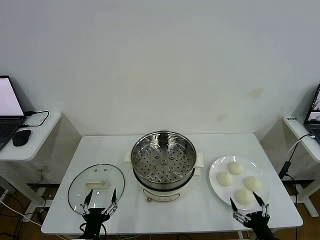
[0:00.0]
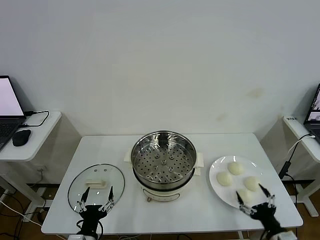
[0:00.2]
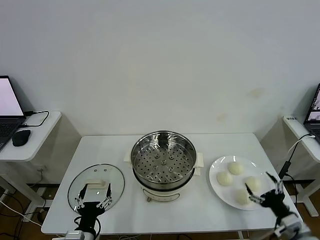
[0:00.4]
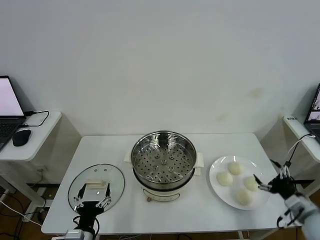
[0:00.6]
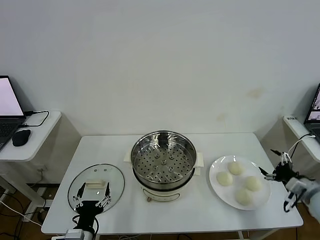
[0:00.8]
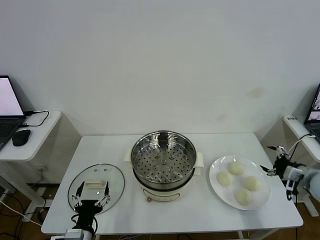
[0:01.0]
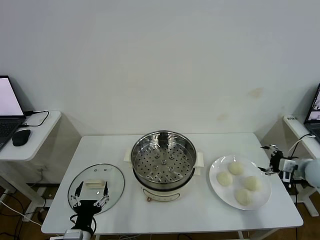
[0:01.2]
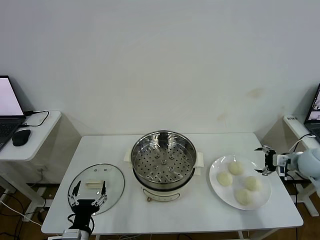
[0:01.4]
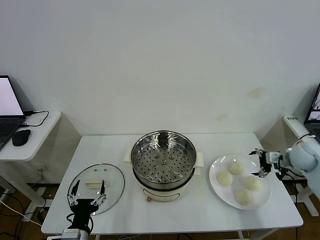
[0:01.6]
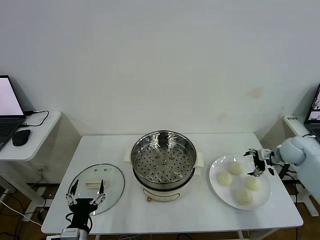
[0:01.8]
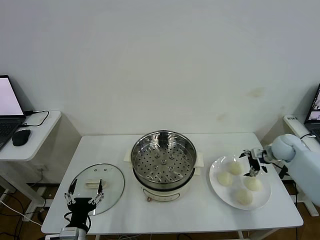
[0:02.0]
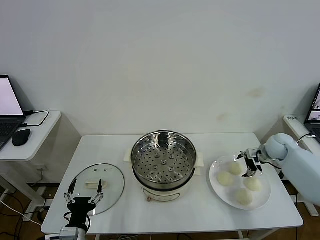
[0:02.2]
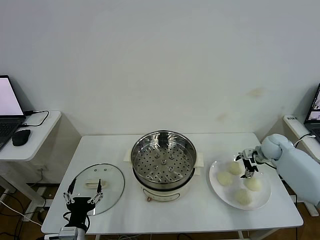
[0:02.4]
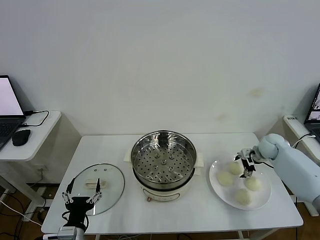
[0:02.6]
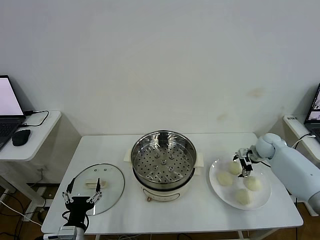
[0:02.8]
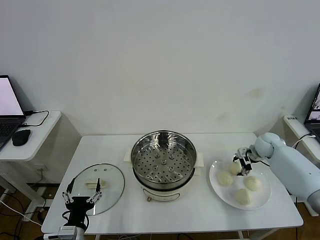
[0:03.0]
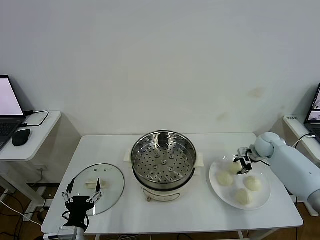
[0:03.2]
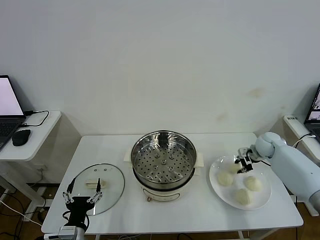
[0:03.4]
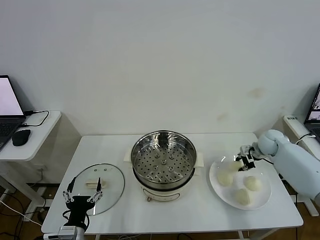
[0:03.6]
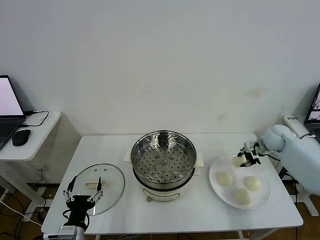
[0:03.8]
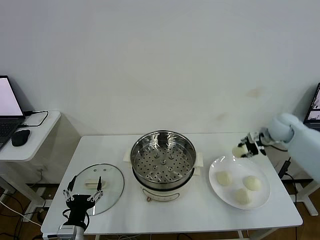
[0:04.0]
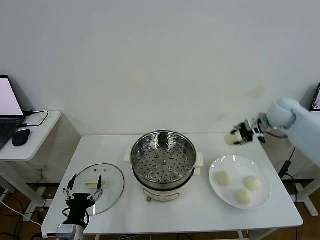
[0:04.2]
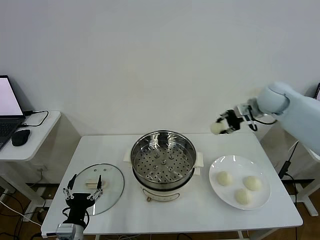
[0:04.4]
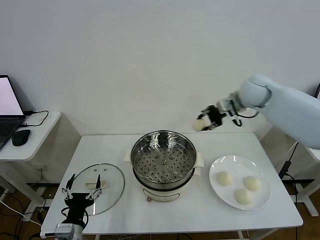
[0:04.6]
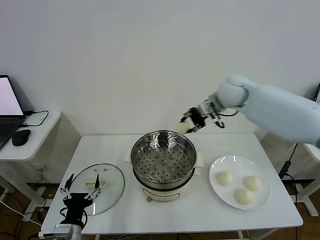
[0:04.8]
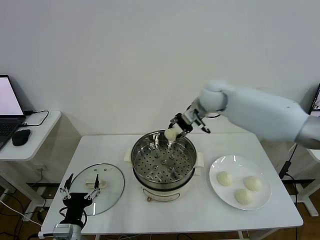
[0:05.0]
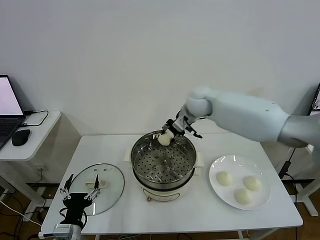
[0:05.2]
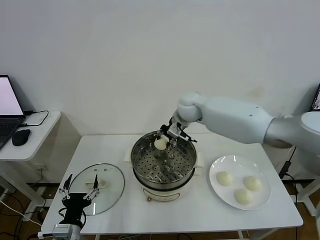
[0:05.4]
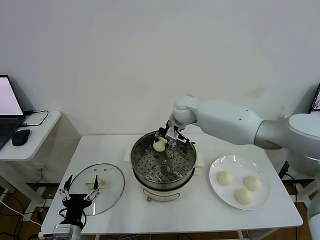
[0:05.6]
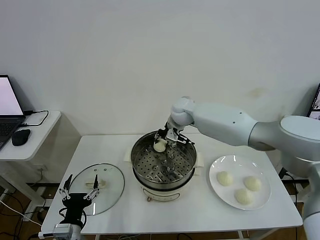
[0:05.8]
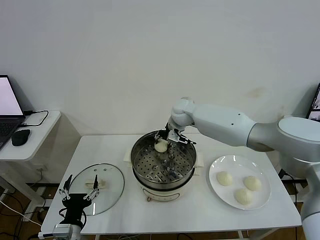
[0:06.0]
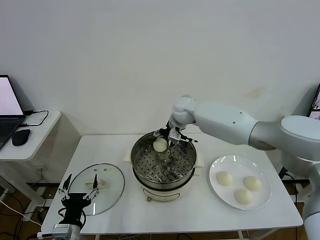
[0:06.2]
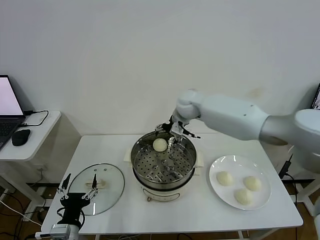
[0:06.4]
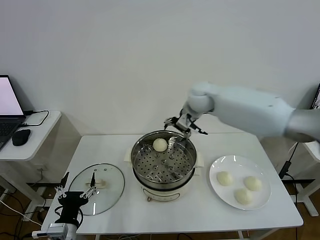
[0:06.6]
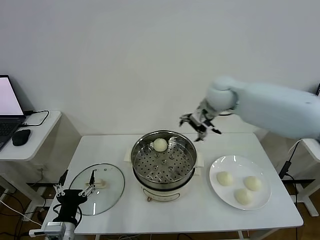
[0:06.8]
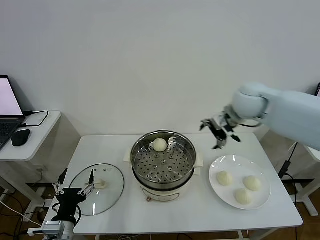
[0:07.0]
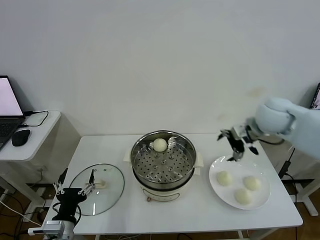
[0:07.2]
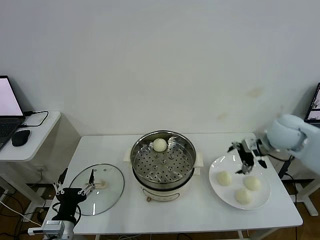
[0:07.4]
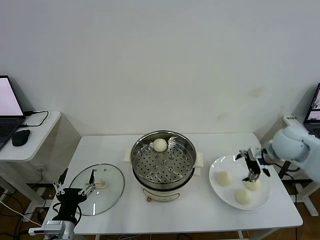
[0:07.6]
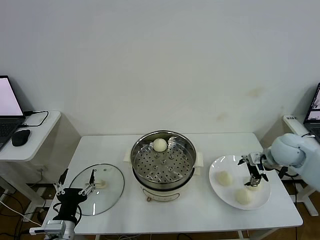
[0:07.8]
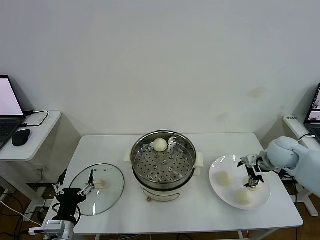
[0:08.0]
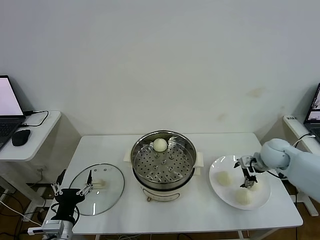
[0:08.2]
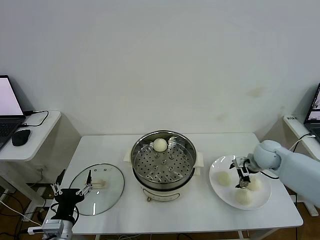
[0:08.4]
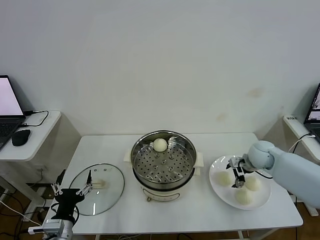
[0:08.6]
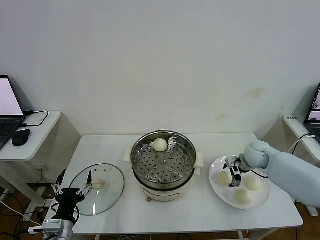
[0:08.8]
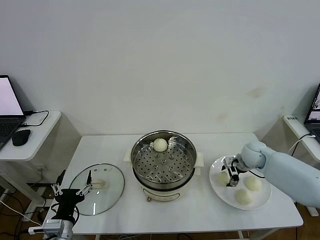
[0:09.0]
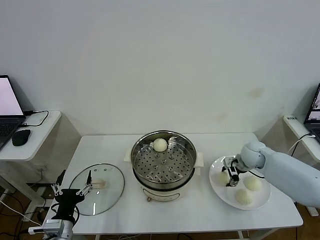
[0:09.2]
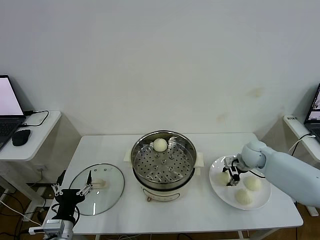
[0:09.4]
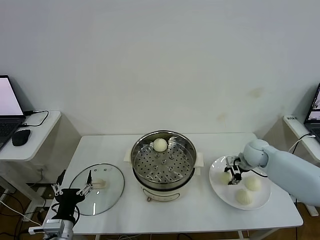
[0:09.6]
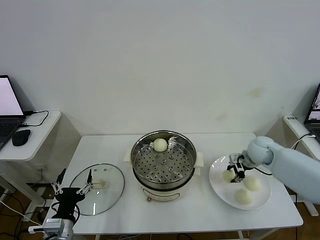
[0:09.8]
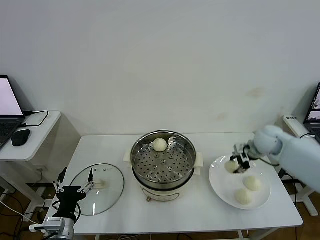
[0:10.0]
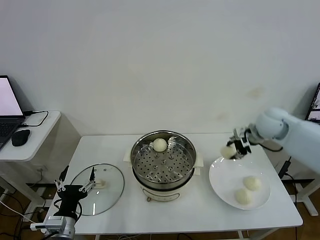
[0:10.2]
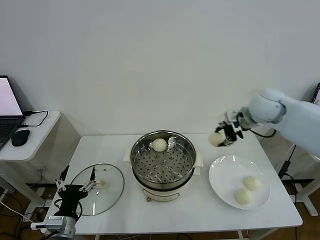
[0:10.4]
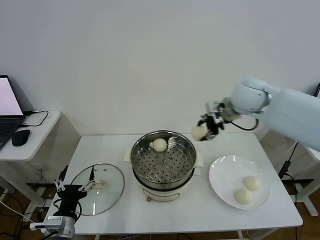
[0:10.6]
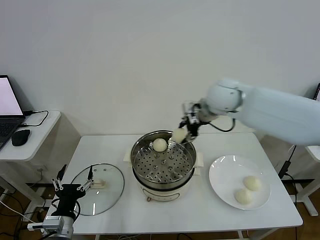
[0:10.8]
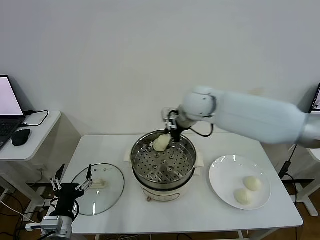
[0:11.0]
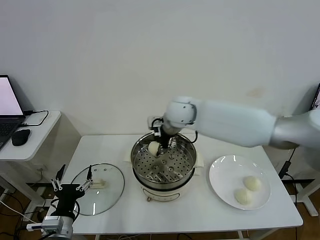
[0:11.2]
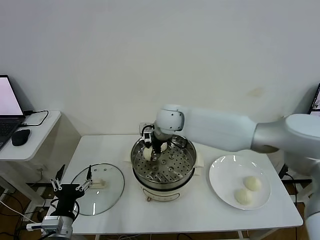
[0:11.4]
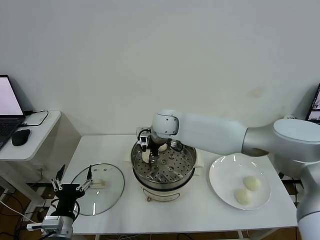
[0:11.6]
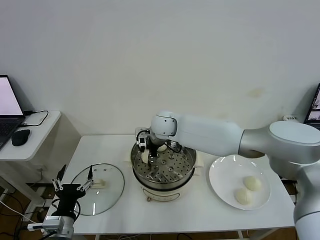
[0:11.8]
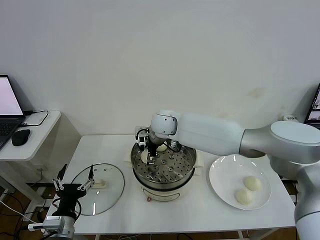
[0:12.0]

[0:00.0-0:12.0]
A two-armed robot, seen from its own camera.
Step, 0.0 to 3.2 s: Grasp the baozi in the plate with right gripper.
Step, 3.6 to 6.4 s: Place the baozi on the steamer with right gripper.
Step, 6.6 to 9.4 s: Grasp the baozi in the plate with right gripper.
1.6 to 3.0 s: The right gripper is displaced forward and to the left by roughly 10 cm, and closes its fingers.
3.0 to 4.4 s: The right gripper is displaced upward and to the left by roughly 25 cm, and closes its fingers.
4.4 to 6.0 s: The right gripper goes about 25 cm to the left and downward, and opens.
6.0 to 7.6 s: The right gripper moves to the right and backward, some 35 cm, and opens.
7.6 to 9.0 s: The right gripper shifts approximately 15 cm downward and forward.
9.0 to 10.4 s: The right gripper shifts about 25 cm upward, and closes up.
10.4 to 12.0 s: The right gripper travels to the left by some 25 cm, and opens up.

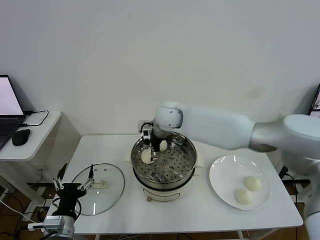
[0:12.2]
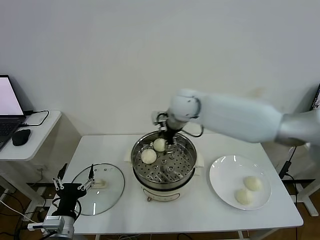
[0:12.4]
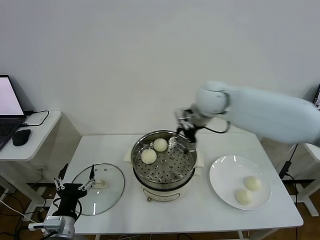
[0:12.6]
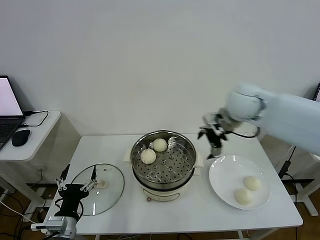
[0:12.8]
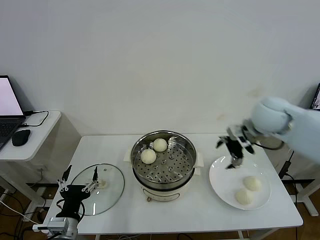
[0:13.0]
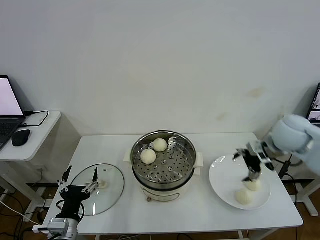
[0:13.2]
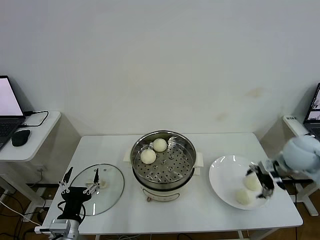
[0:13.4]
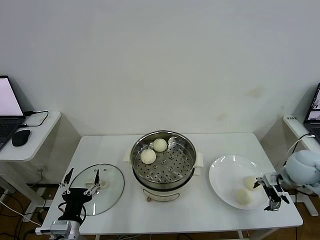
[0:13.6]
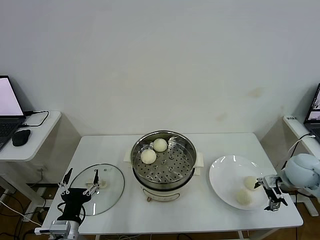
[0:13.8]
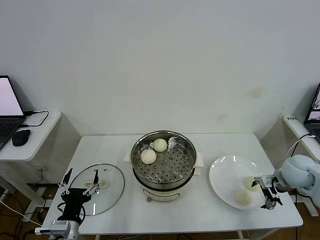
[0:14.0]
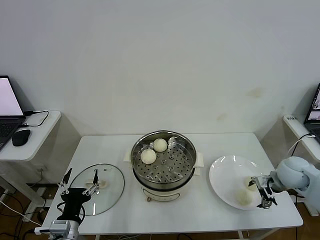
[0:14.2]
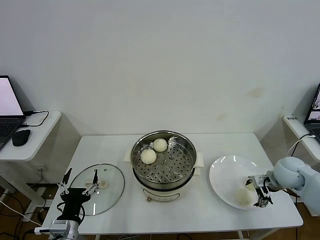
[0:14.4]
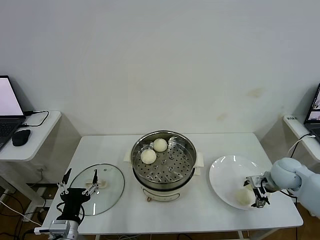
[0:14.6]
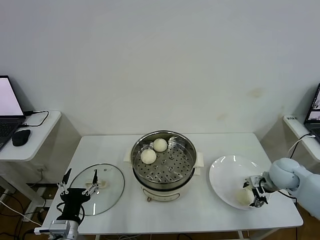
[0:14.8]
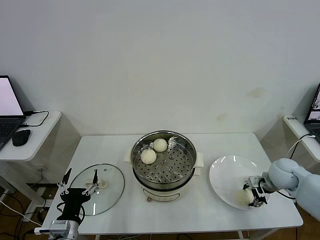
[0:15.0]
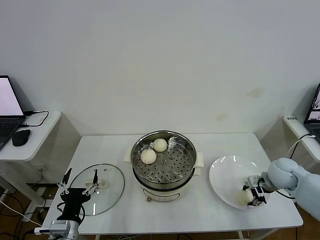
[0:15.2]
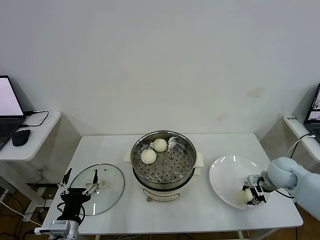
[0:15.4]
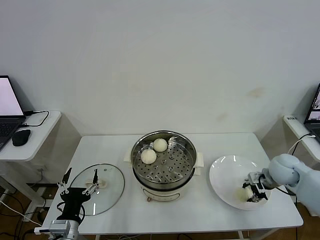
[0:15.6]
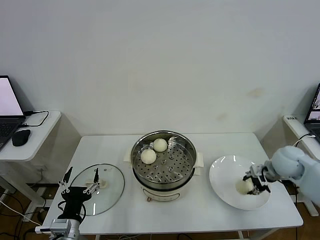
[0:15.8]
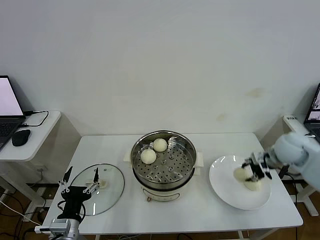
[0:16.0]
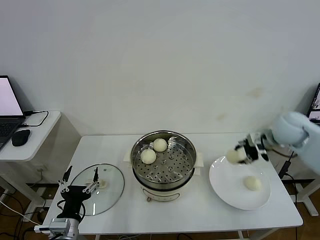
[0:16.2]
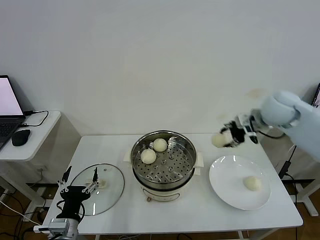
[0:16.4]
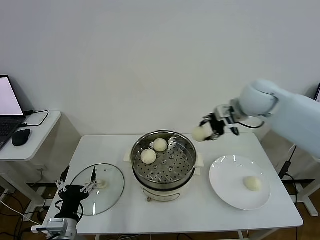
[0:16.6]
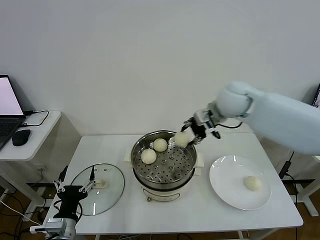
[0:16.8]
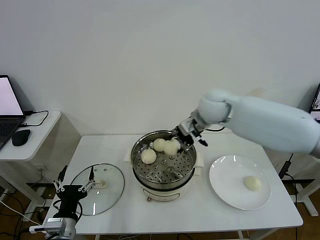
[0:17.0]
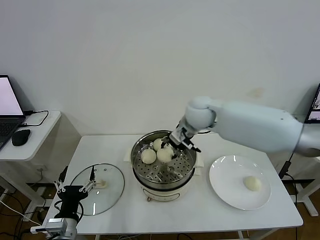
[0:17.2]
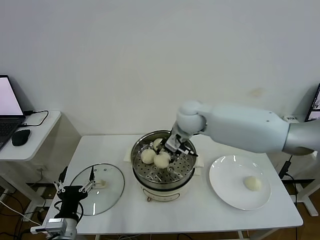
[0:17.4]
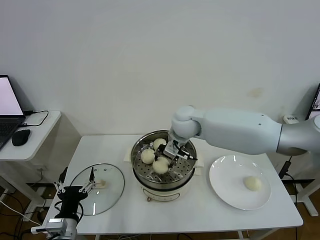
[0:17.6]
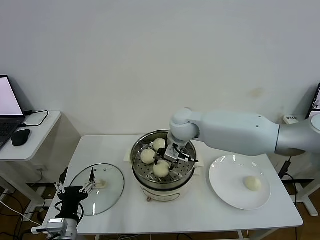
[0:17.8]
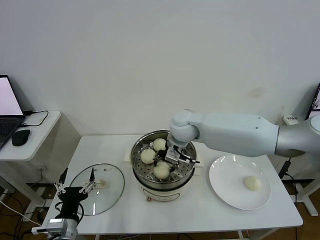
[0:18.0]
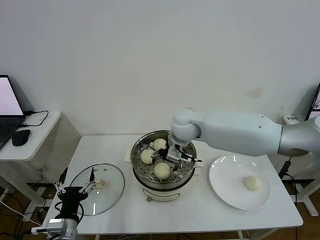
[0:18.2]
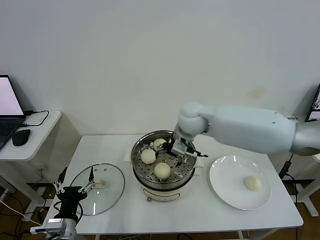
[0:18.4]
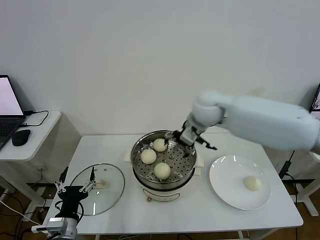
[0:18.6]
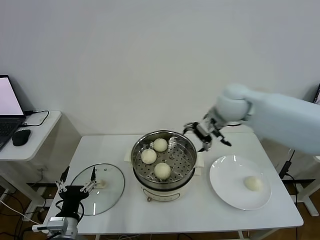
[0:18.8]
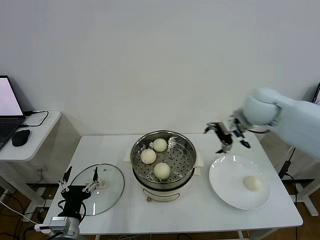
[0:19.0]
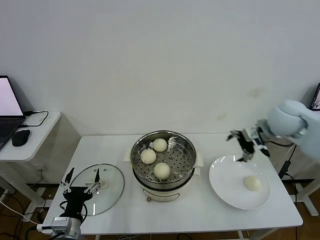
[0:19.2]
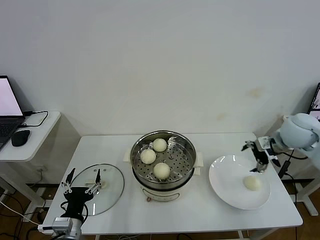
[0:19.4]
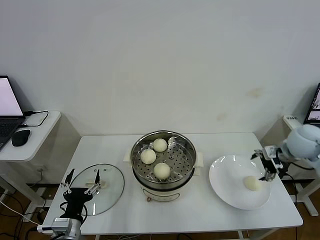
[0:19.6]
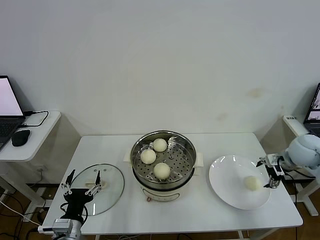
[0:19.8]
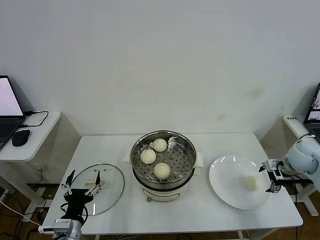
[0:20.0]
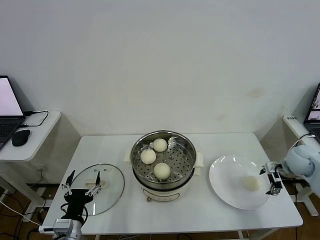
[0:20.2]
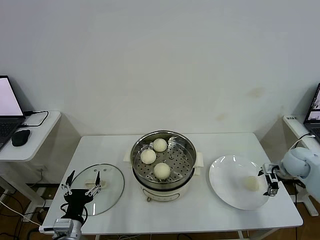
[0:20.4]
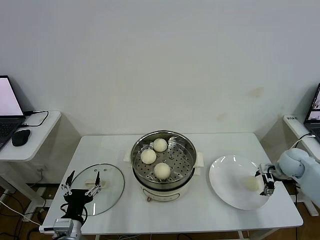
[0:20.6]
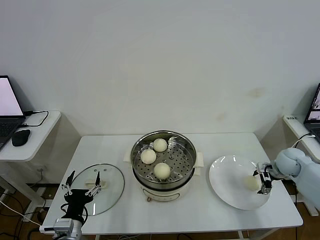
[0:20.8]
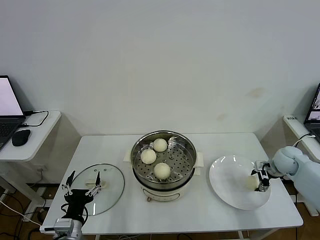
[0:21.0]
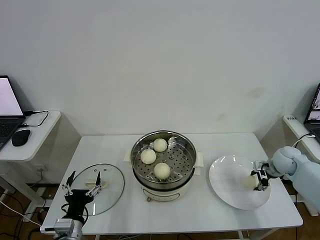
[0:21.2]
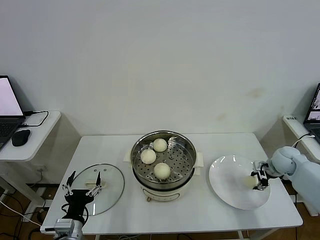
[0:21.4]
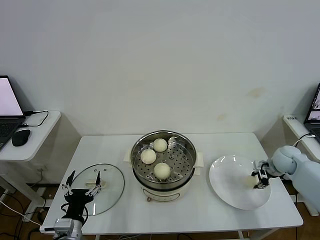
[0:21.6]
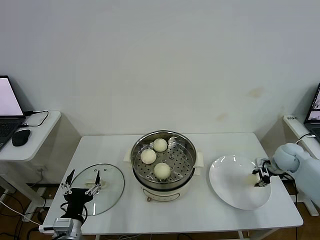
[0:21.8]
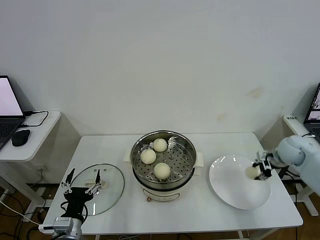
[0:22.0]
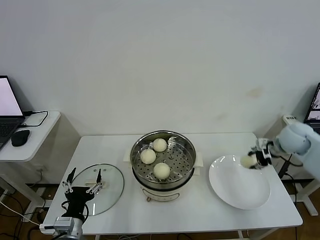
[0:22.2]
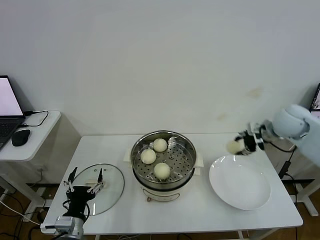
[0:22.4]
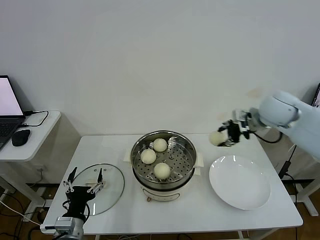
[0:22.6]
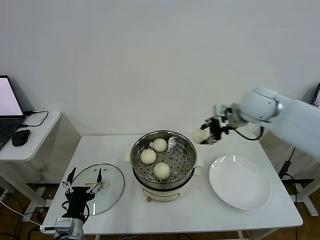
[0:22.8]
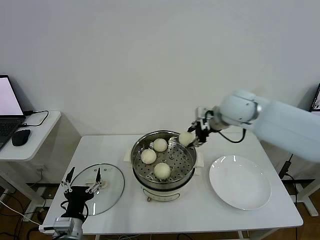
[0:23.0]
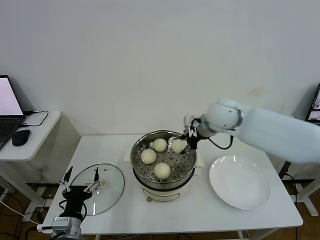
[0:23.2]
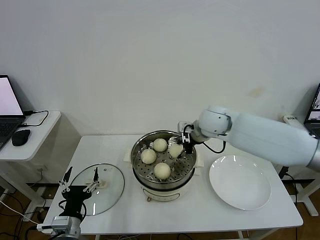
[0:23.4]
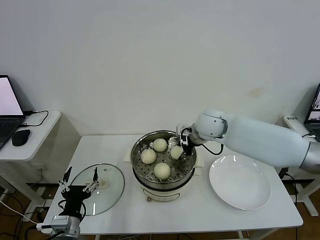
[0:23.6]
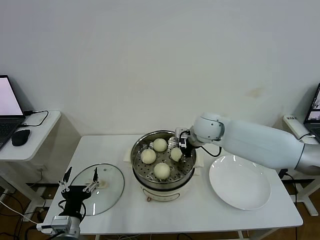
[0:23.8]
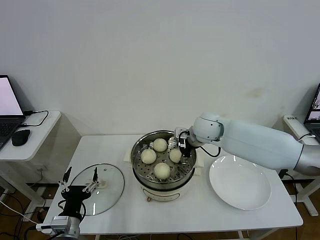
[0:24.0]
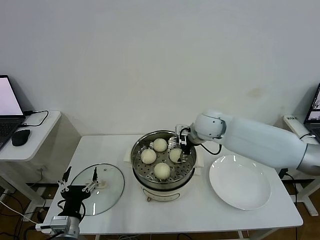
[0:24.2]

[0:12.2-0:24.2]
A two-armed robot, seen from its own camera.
Step, 12.6 to 15.2 s: Grasp the baozi in the plate with right gripper.
Step, 15.6 to 18.4 s: Place the baozi on the steamer with right gripper.
Step, 18.6 to 21.6 s: Grasp the baozi in the plate with right gripper.
12.2 to 13.8 s: The right gripper moves to the right, roughly 40 cm.
13.8 to 15.2 s: The right gripper moves roughly 5 cm, and closes up.
15.2 to 16.6 s: The right gripper travels upward, to the left and forward by some 30 cm.
16.6 to 18.2 s: The right gripper is displaced to the left and downward by approximately 20 cm, and opens up.
18.2 to 19.8 s: The right gripper moves to the right, approximately 40 cm.
19.8 to 21.2 s: The right gripper heads downward, covering roughly 10 cm, and closes up.
21.2 to 22.6 s: The right gripper shifts approximately 25 cm upward and to the left.
22.6 to 24.2 s: The right gripper shifts approximately 20 cm to the left and downward, and opens up.
